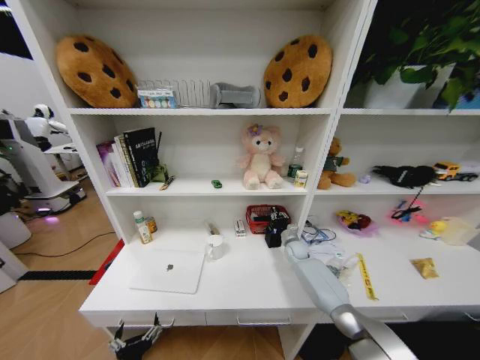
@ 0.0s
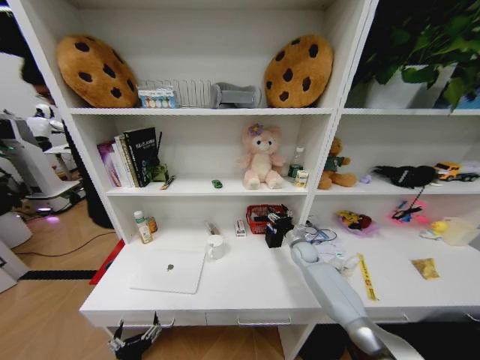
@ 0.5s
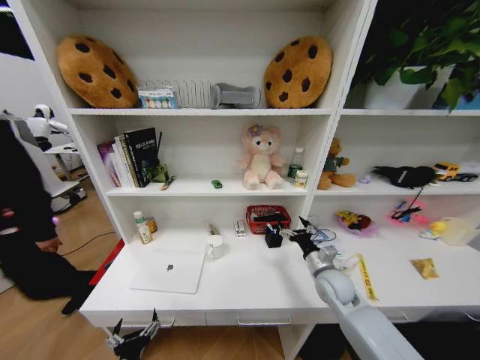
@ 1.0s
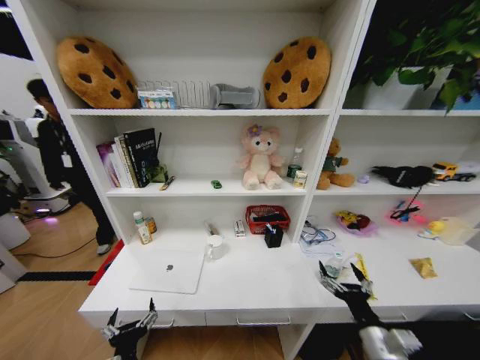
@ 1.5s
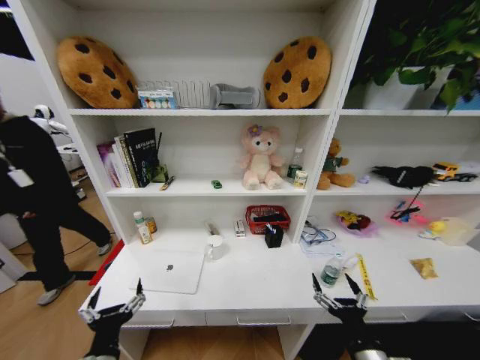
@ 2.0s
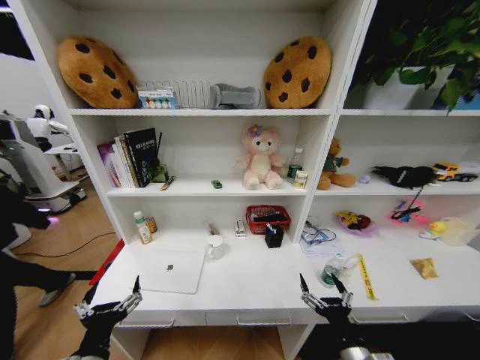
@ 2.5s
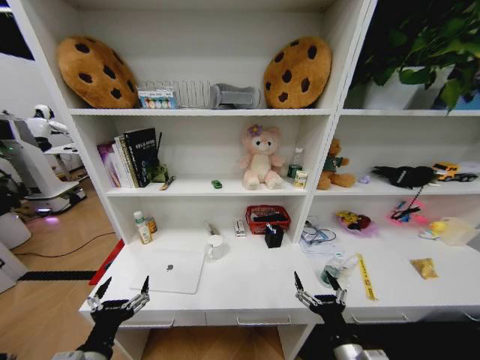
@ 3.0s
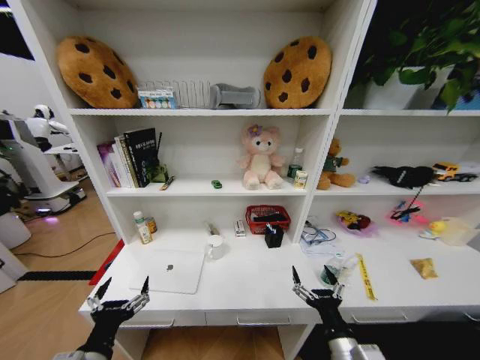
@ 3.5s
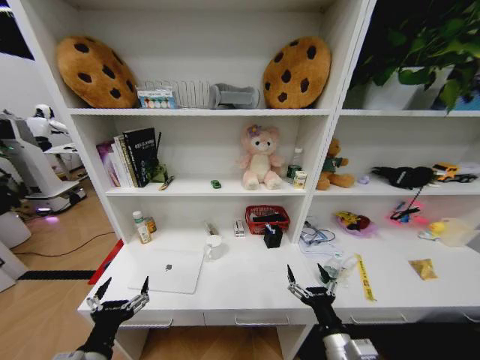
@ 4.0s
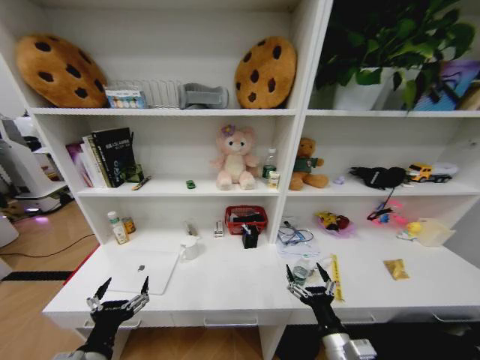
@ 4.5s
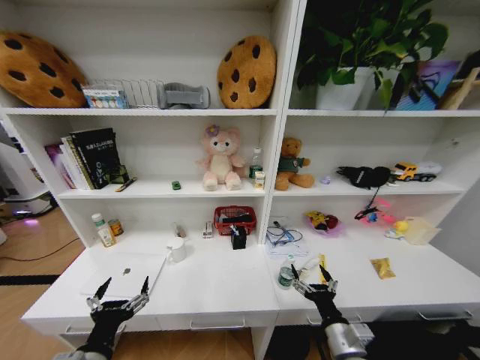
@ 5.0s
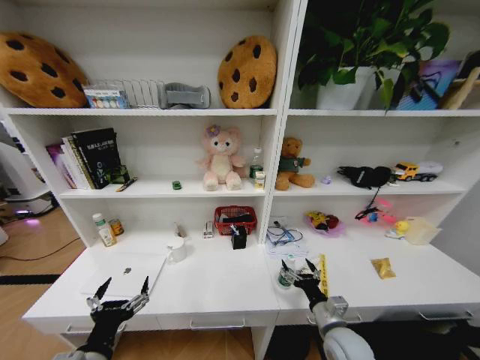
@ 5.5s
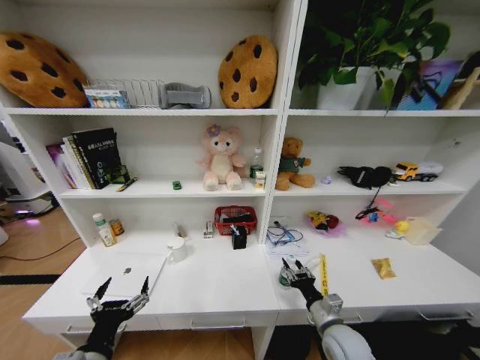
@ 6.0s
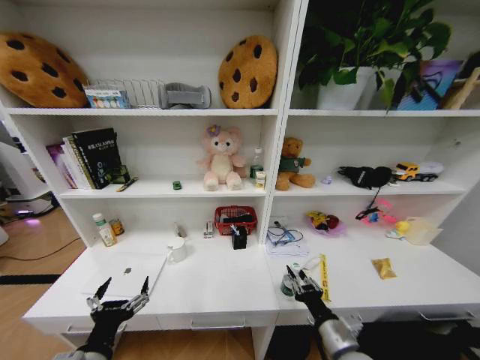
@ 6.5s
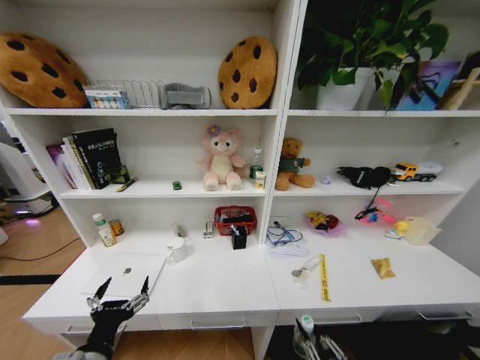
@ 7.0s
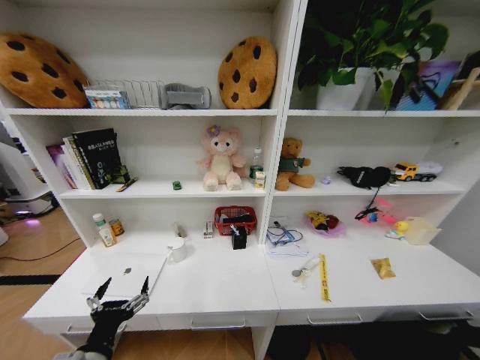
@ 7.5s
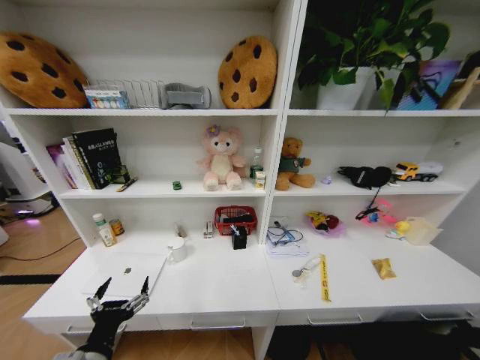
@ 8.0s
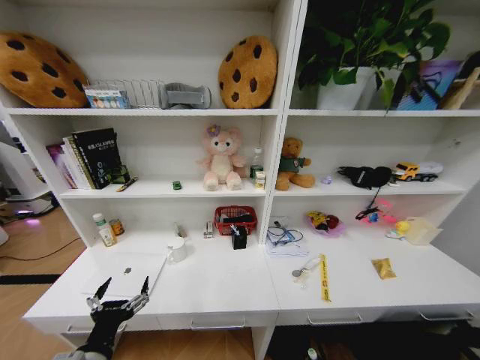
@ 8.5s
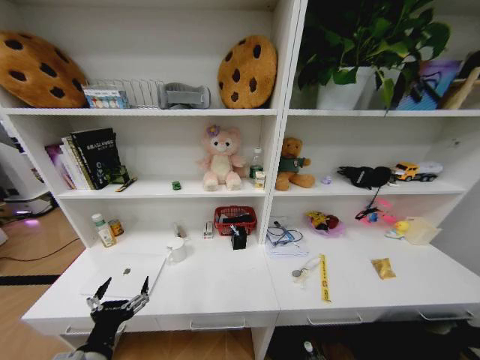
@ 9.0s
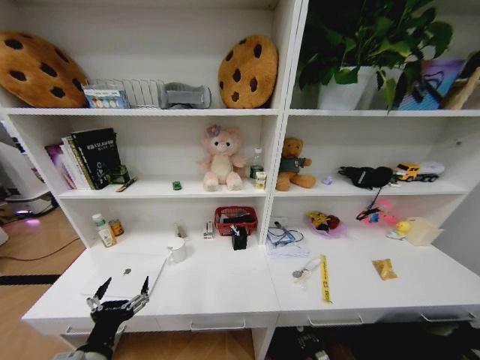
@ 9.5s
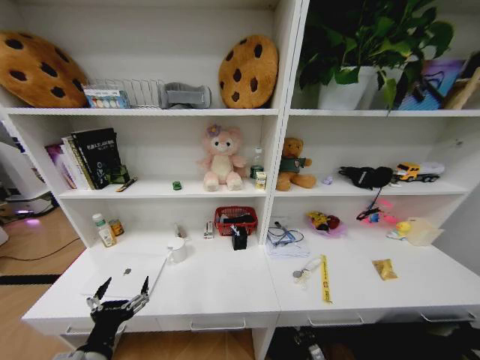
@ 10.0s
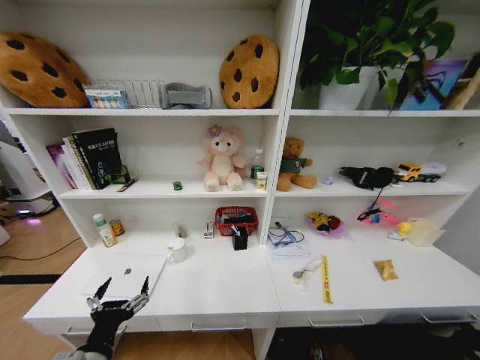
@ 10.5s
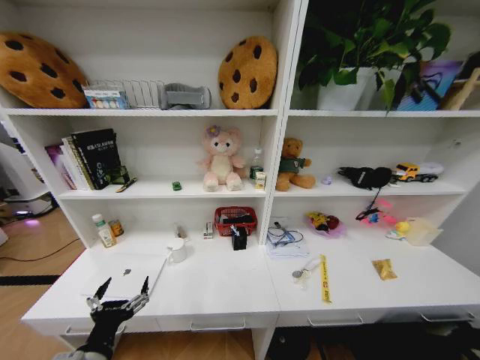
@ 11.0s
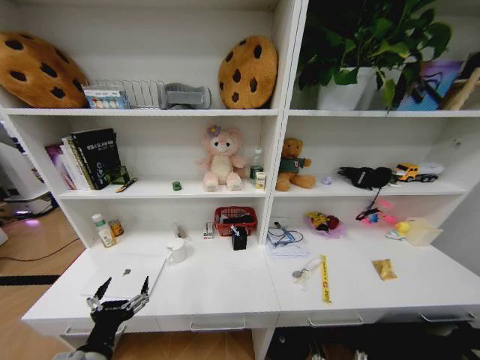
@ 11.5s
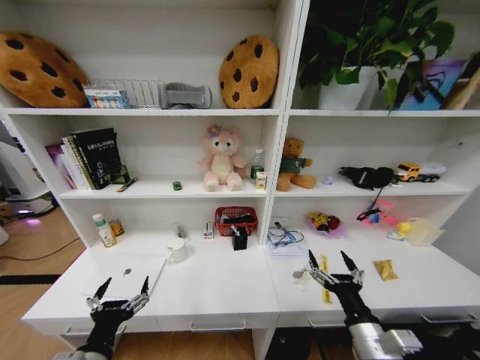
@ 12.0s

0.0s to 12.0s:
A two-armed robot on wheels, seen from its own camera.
Task of the whole recording: Organize the objects on the table.
0.0s to 2.0s: The left gripper moves upward, some 10 cm. Meanwhile the right gripper heads backward, covering approximately 40 cm, and opens.
2.0s to 4.0s: The right gripper heads to the left, covering some 5 cm.
4.0s to 6.0s: The right gripper moves forward, approximately 10 cm, and closes its fingers.
6.0s to 8.0s: The right gripper travels downward and backward by roughly 35 cm.
8.0s to 10.0s: The right gripper is displaced forward by some 20 cm.
10.0s to 12.0s: The right gripper goes about 40 cm upward, and opens its fingers.

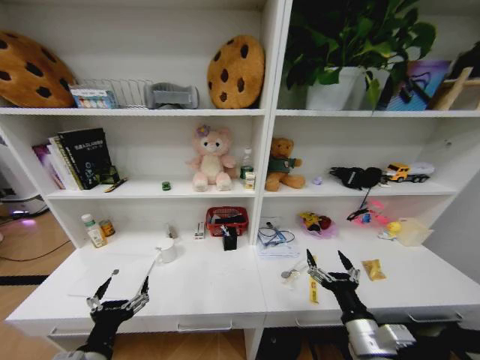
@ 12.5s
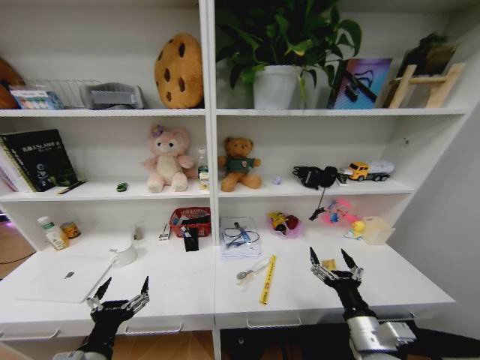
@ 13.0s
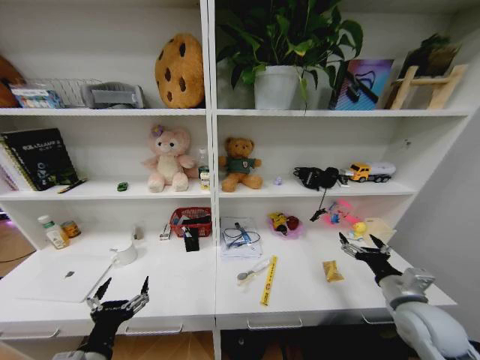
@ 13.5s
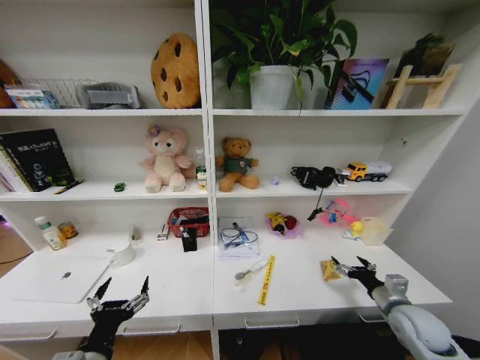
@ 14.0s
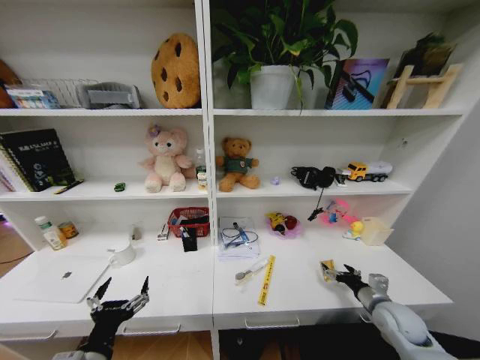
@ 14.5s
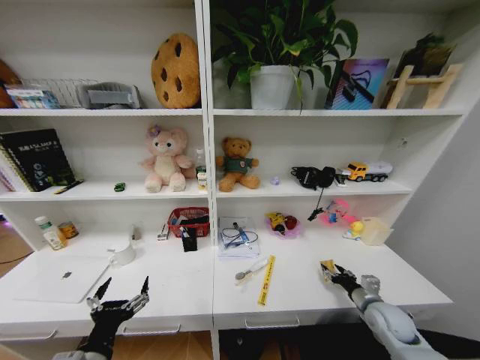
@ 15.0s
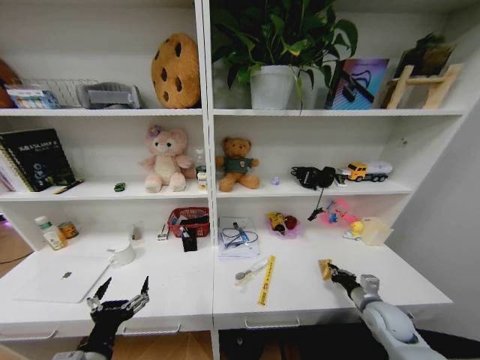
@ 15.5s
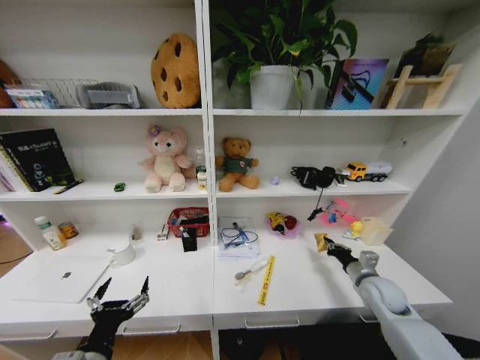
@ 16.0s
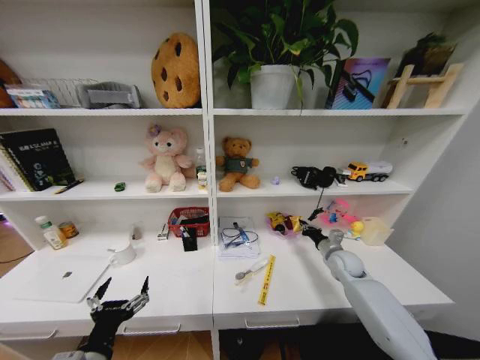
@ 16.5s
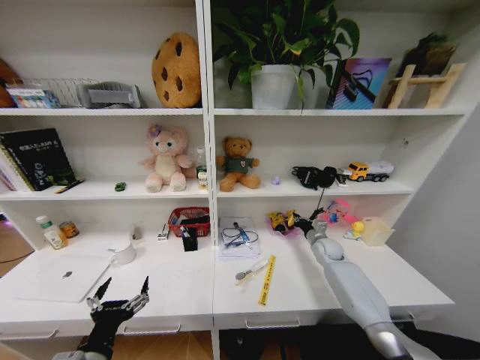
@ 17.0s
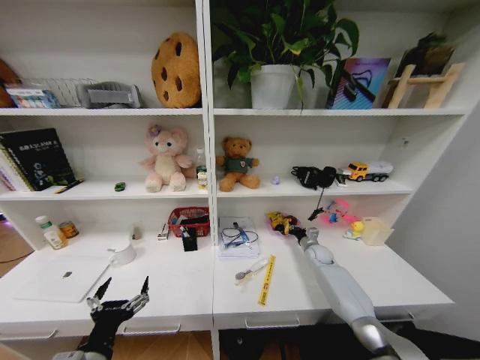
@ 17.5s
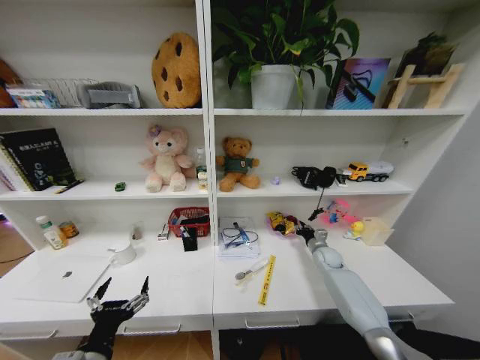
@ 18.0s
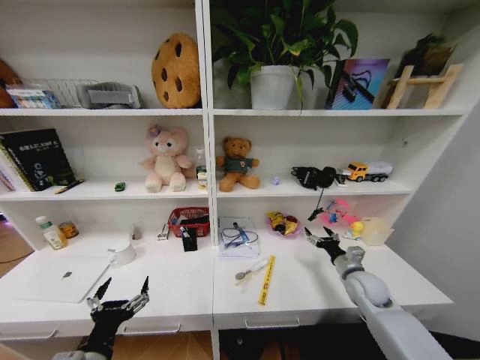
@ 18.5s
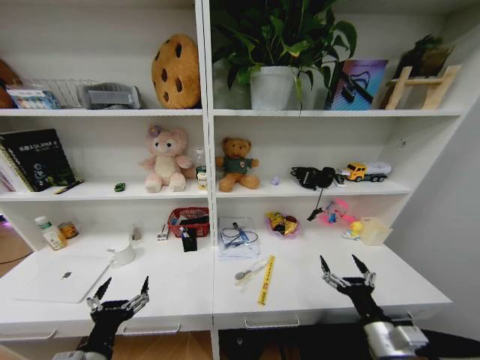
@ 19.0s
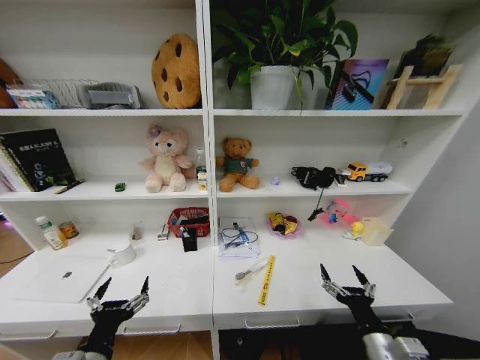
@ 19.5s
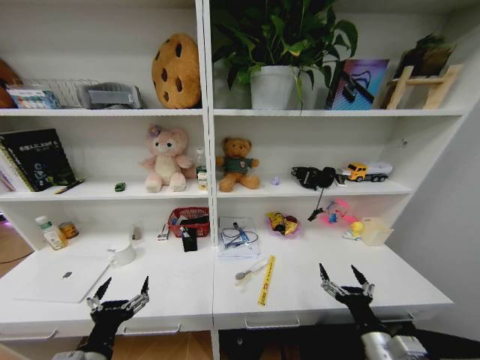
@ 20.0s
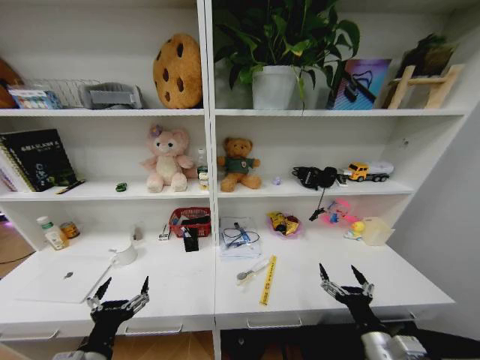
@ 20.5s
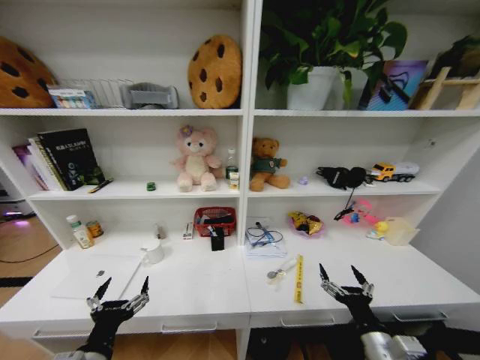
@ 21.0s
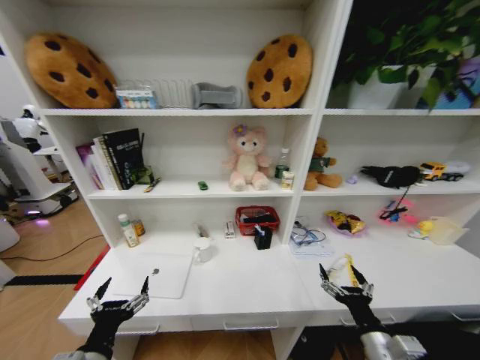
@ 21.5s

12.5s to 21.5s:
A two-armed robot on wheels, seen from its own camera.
Task of the whole recording: Organize the objects on the table.
12.5s to 14.5s: The right gripper travels to the right, forward and downward by about 20 cm.
14.5s to 17.0s: The right gripper heads forward, covering approximately 25 cm, and closes up.
17.0s to 19.5s: The right gripper heads backward, covering some 35 cm, and opens.
